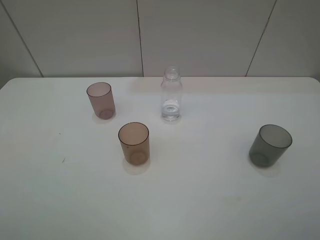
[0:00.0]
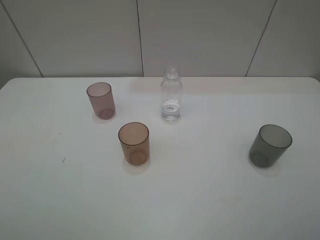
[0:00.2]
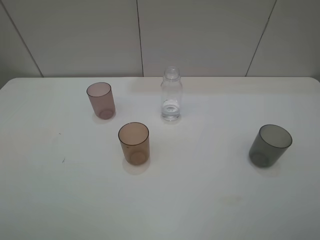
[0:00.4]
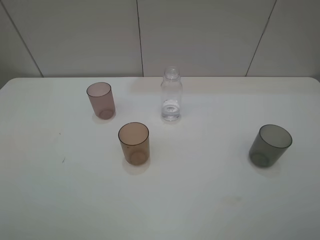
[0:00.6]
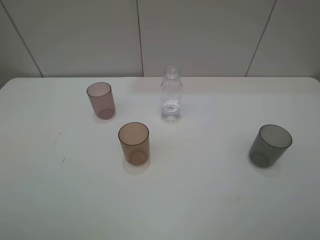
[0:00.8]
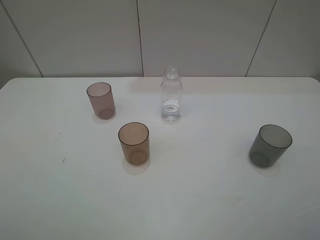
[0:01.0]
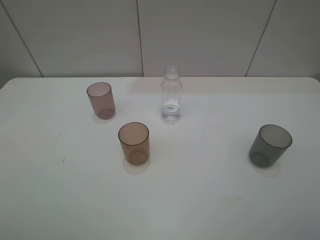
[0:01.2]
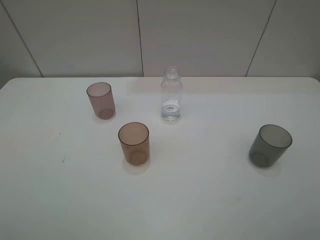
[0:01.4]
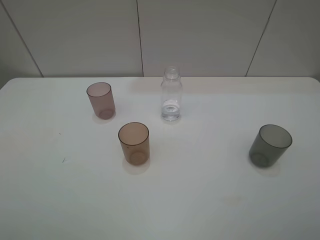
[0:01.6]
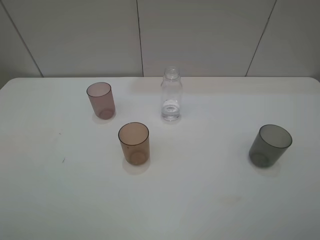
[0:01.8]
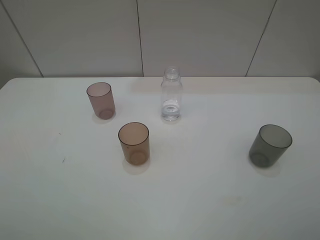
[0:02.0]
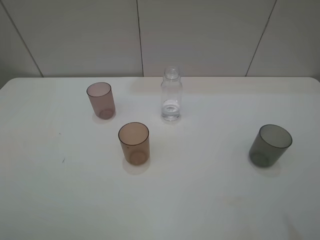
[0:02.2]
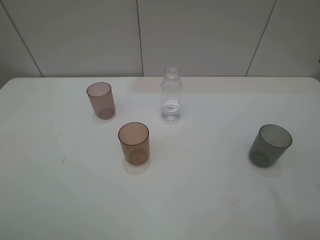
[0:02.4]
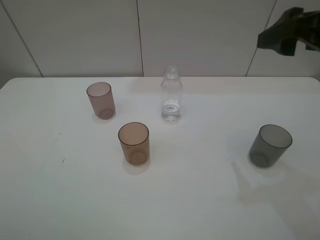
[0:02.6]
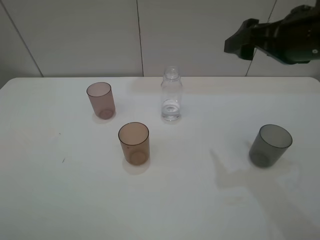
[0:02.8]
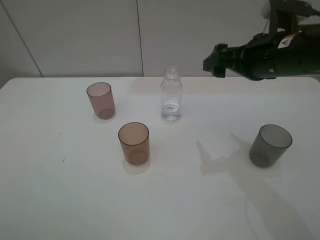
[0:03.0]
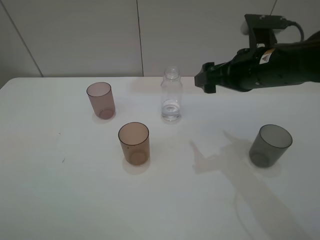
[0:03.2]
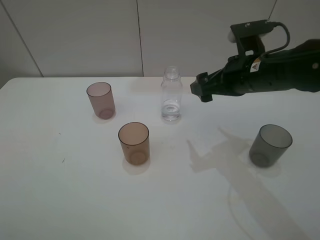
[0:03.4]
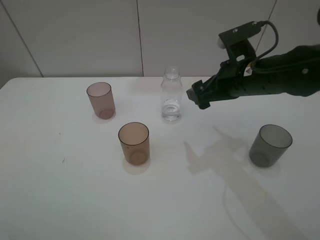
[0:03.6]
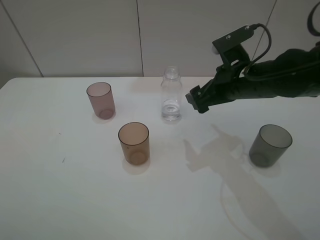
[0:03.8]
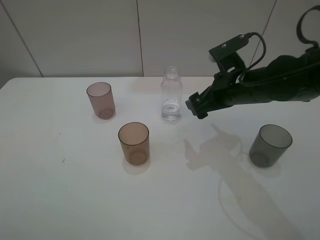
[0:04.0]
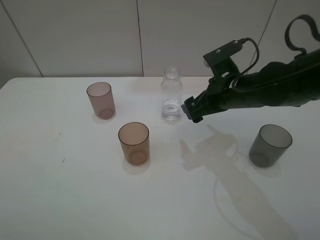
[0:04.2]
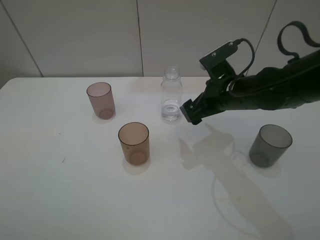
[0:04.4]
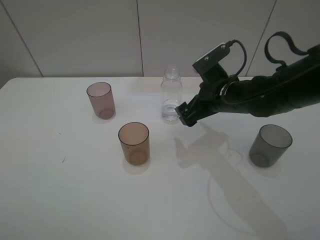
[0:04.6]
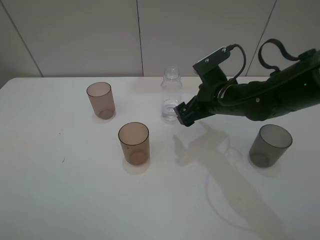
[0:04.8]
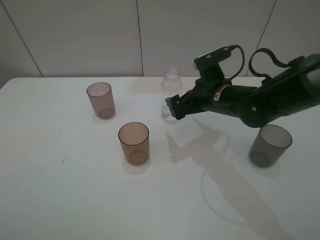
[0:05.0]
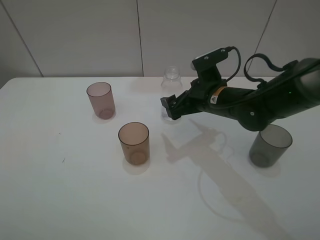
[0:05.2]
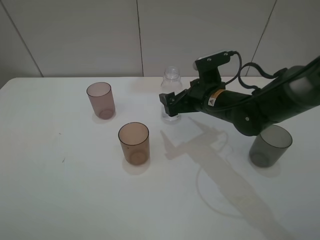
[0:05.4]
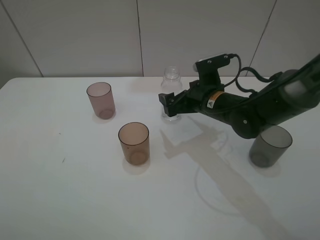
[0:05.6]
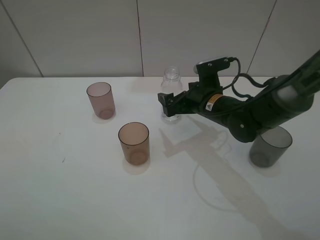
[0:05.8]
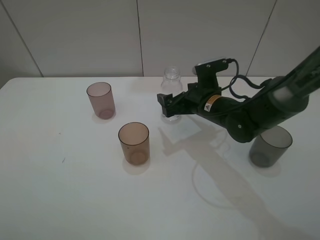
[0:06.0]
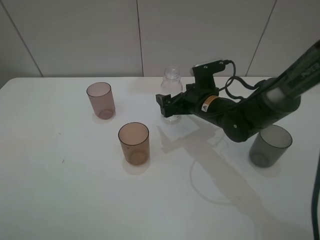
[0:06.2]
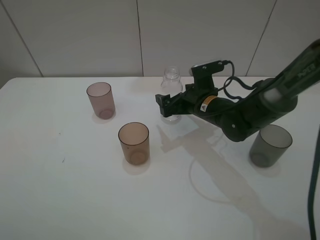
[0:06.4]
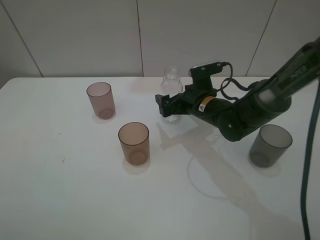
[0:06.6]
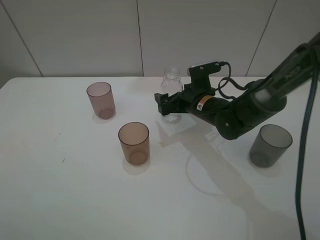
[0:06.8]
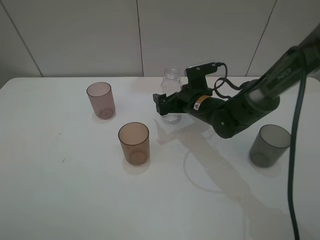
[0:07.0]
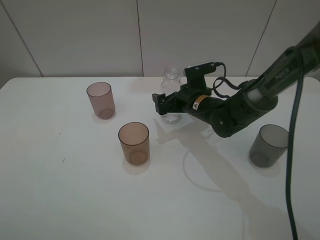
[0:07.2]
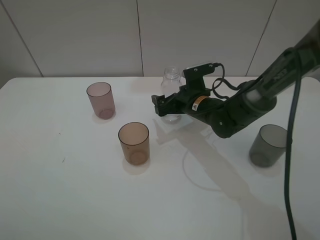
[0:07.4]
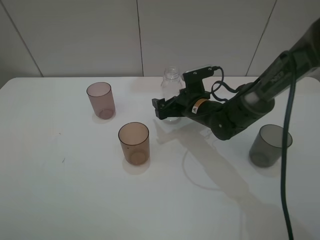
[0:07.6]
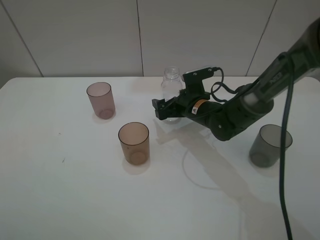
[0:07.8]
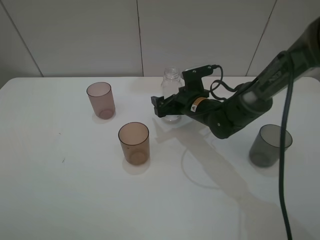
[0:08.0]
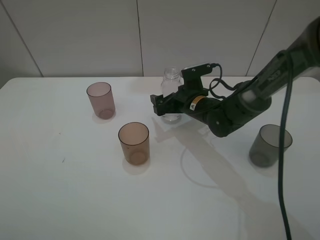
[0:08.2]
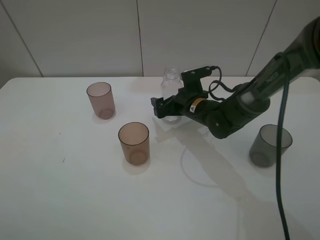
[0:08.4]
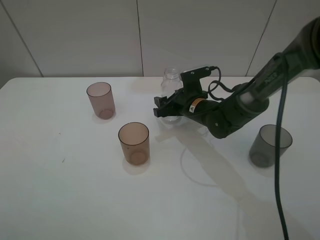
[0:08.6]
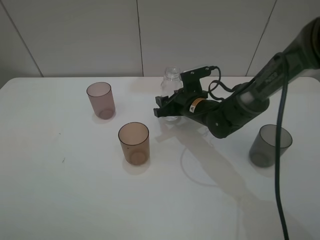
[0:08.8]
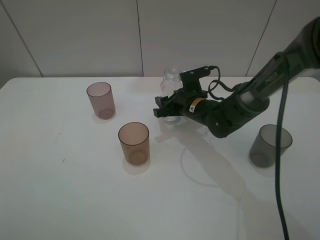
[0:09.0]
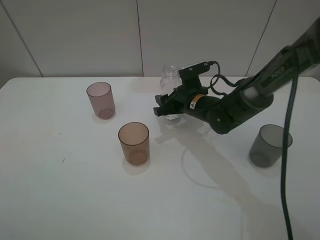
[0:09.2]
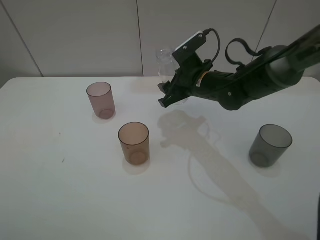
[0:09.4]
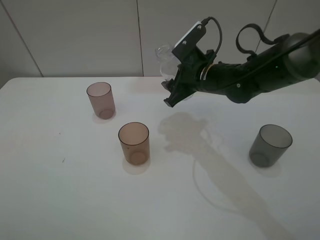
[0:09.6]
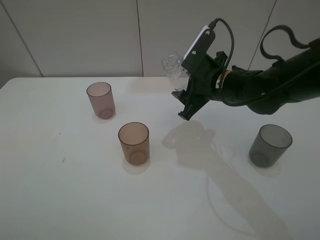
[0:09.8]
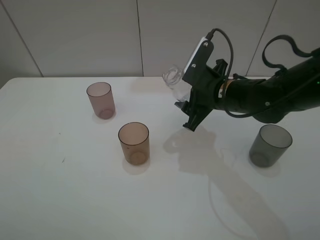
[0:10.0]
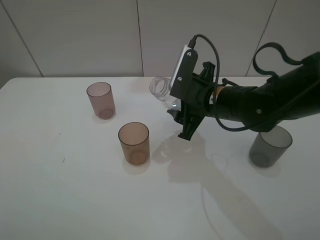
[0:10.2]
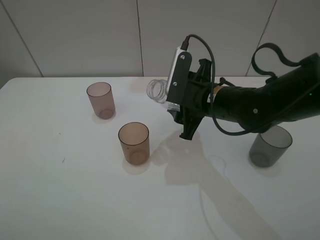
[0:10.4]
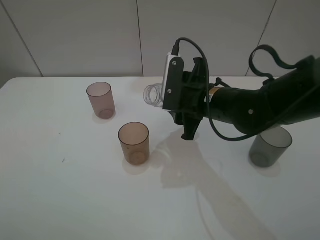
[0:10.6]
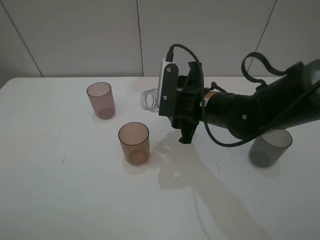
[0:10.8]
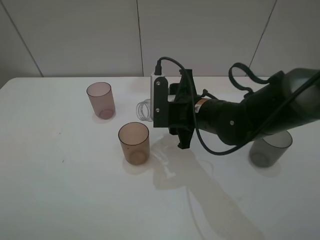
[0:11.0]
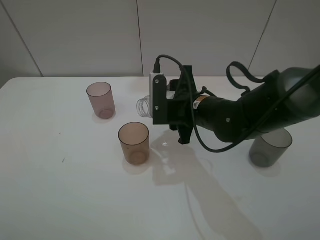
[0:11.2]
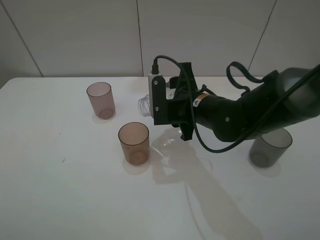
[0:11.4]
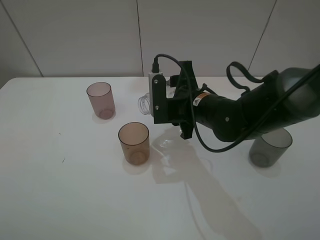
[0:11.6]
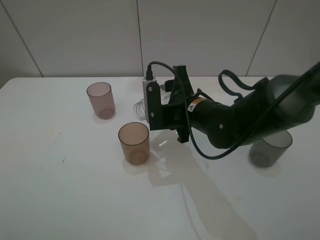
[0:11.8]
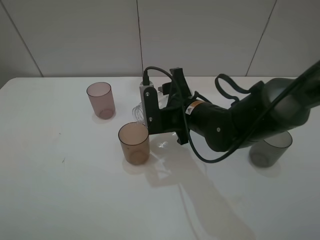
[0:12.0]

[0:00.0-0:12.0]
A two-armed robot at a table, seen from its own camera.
Task of the whole recording: pick up the bottle filled with water and pour water into the middle cup of the three cups.
Step, 0:00.0 to 0:08.8: Grasp the transparent bottle with the right gripper.
0:00.0 to 0:01.6: The two grippers keep their place.
0:01.6 to 0:03.0: The right gripper shifts approximately 30 cm forward.
0:03.0 to 0:04.4: The right gripper is displaced downward by about 10 cm.
0:04.4 to 0:06.0: The right gripper shifts roughly 5 cm downward.
0:06.0 to 0:07.6: The grippers make only small movements.
0:07.6 to 0:09.0: The right gripper closes its fingers.
0:09.0 to 0:10.4: The right gripper shifts some 10 cm upward and backward.

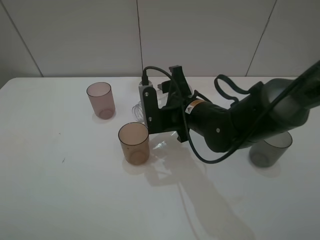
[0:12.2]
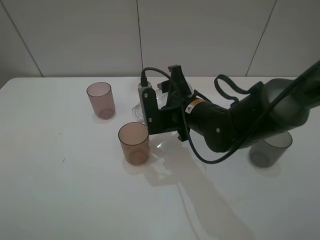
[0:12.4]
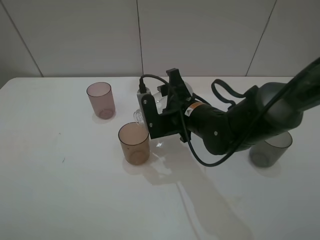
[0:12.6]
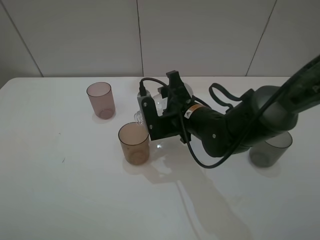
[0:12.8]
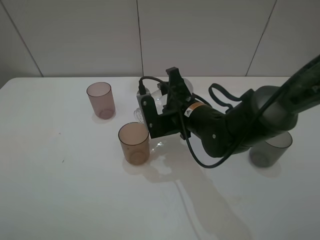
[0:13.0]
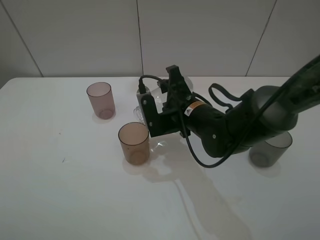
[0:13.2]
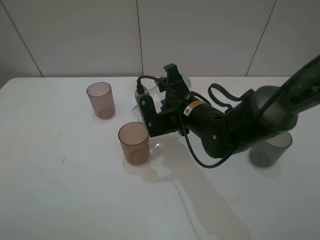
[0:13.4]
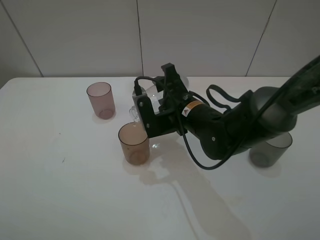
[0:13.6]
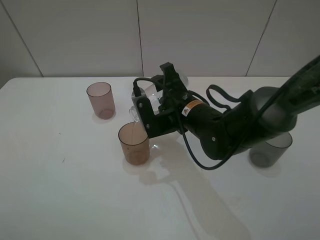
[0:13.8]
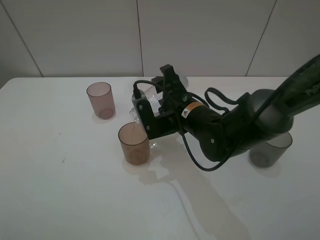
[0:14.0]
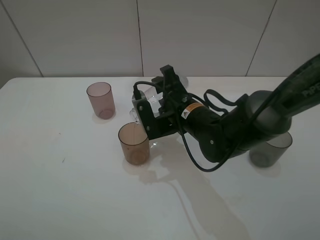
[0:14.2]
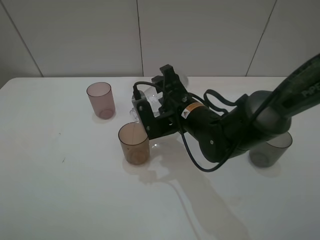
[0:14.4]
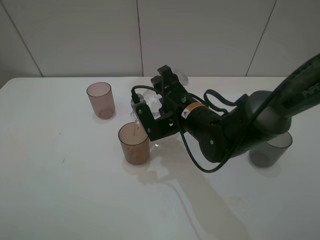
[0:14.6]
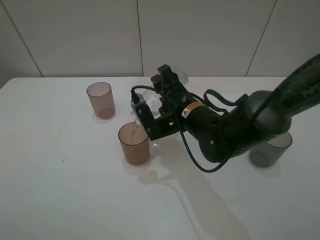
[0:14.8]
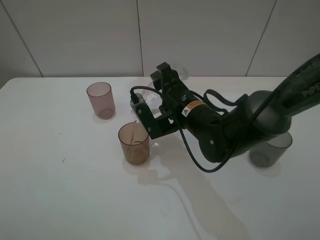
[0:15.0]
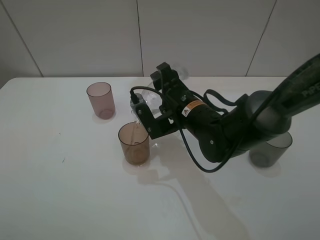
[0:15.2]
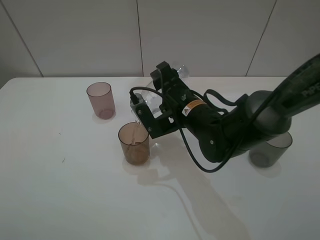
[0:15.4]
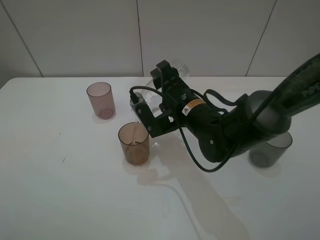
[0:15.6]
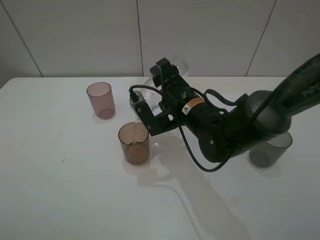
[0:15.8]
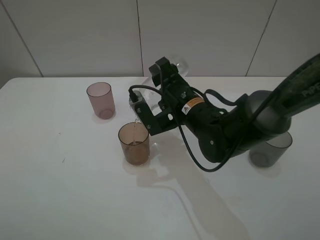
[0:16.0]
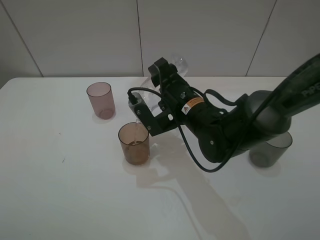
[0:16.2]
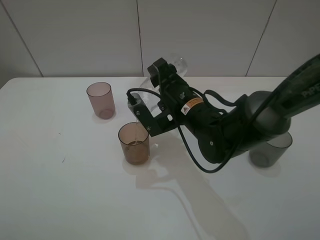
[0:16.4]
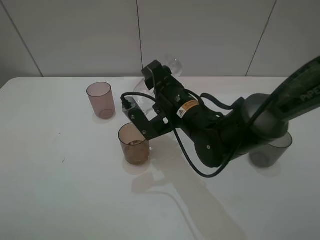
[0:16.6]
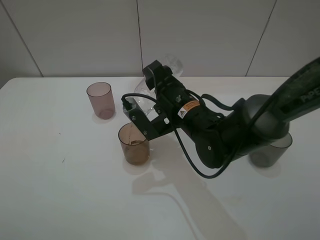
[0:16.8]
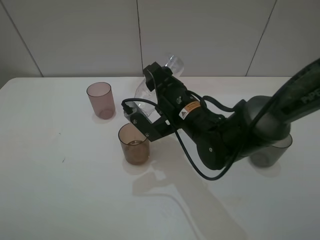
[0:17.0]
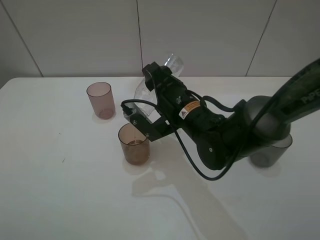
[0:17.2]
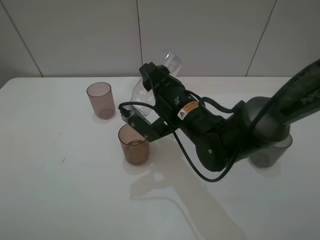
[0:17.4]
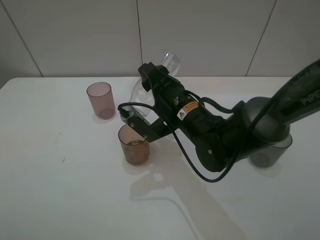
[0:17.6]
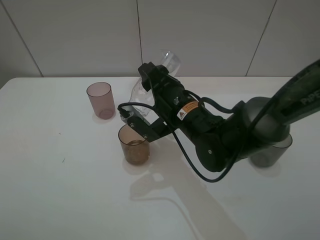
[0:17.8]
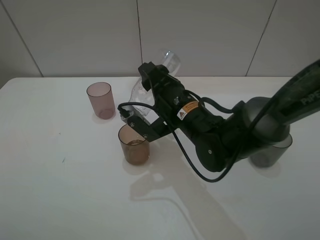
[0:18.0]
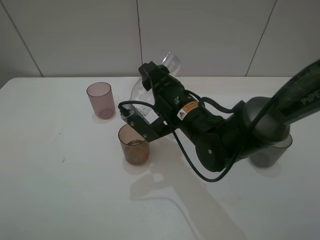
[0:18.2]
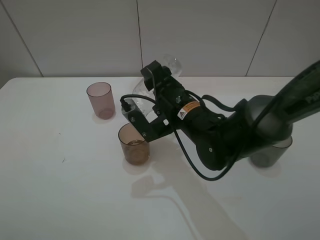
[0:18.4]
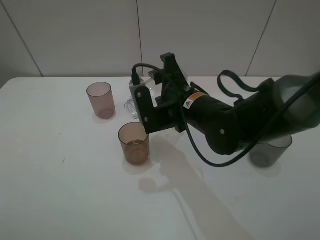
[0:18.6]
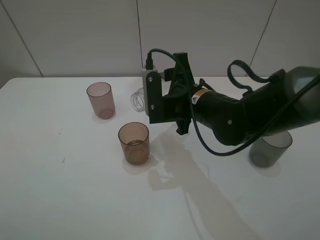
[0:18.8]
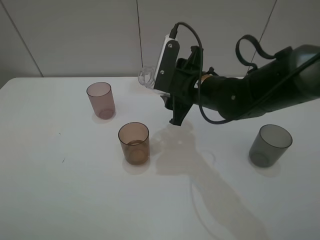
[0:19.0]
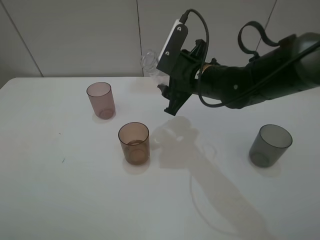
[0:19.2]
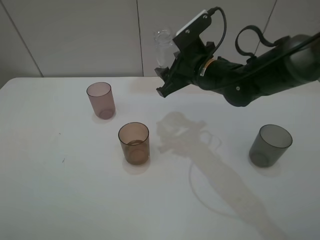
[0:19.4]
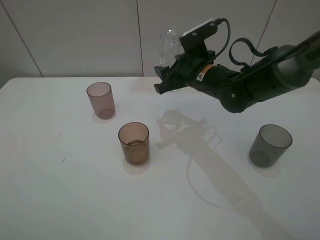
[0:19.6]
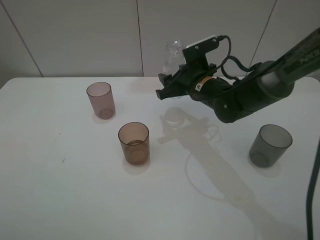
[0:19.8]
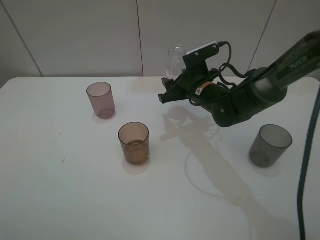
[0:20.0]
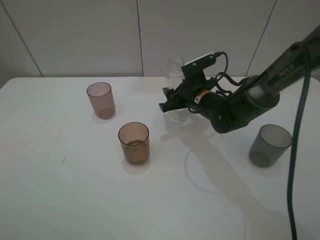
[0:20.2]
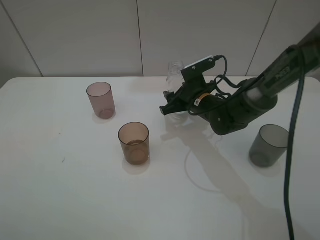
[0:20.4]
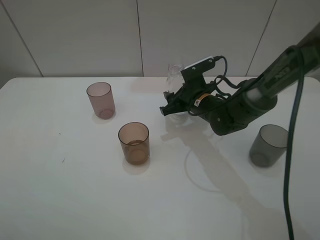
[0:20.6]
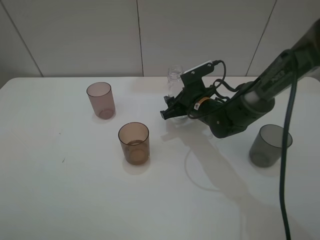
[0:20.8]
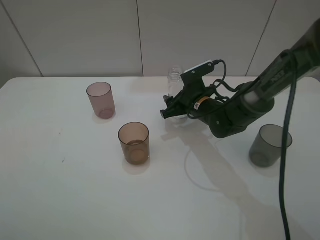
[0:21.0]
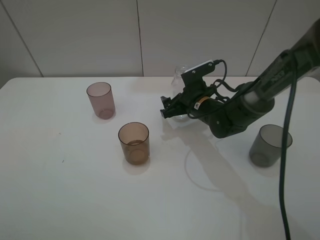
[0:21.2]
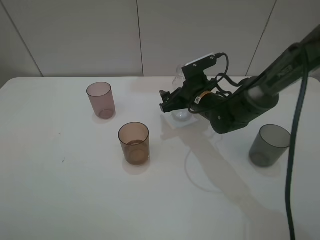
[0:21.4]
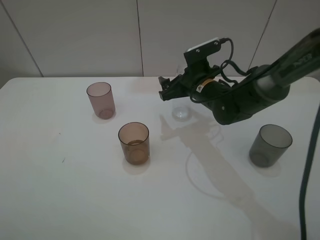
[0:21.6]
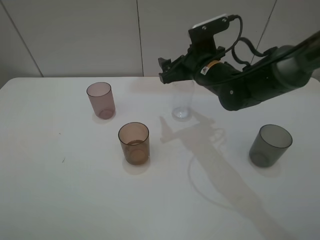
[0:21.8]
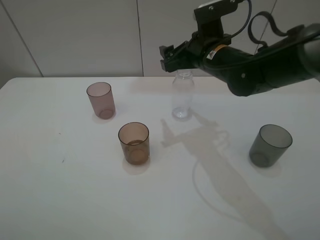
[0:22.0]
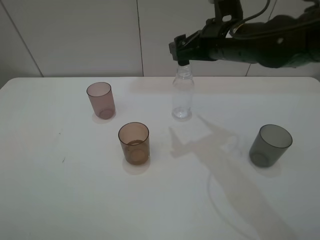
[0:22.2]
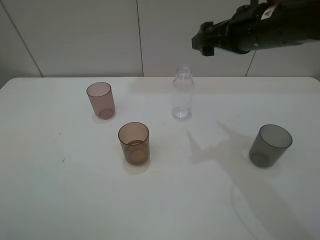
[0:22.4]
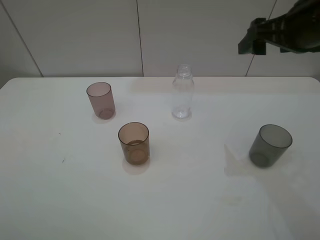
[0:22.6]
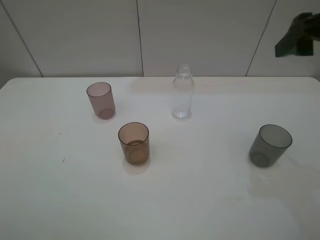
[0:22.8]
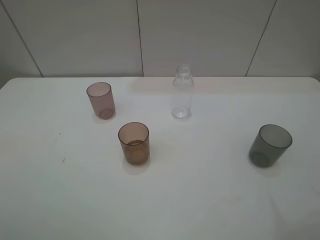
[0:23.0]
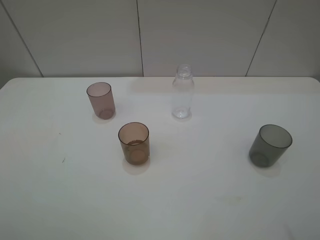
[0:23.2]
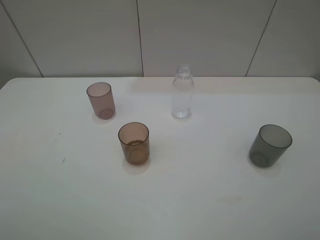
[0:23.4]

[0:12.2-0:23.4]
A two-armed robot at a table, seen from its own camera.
Task of the whole recording: pick up the bottle filled with water and pour water into the middle cup of the three cups.
Step, 0:13.4 to 0:21.8: Place the transparent bottle with the right gripper.
0:12.2 to 0:13.8: The grippers move only a little.
0:13.8 to 0:15.4: The grippers stay close to where they were, moving slightly.
0:15.4 to 0:17.0: There are only small adjustments of the grippers.
0:18.6 to 0:20.2: The right gripper travels forward and downward by about 10 cm.
0:20.2 to 0:21.8: The right gripper goes roughly 10 cm upward, and opens.
0:21.8 to 0:23.4: The right gripper heads backward, upward and to the right, covering about 40 cm.
